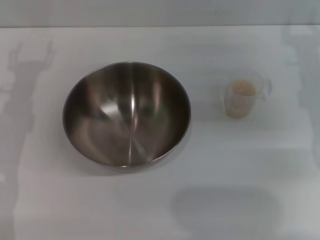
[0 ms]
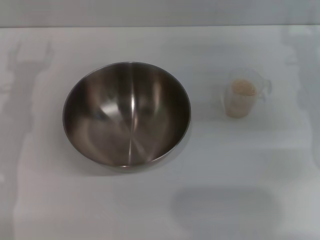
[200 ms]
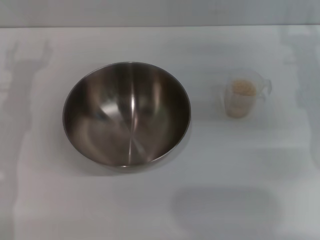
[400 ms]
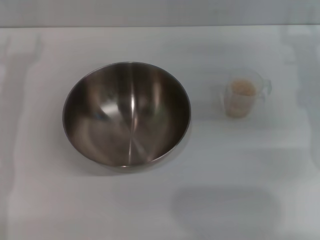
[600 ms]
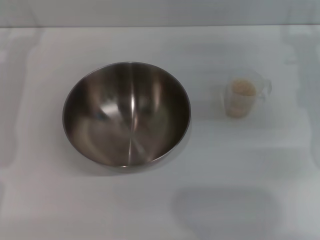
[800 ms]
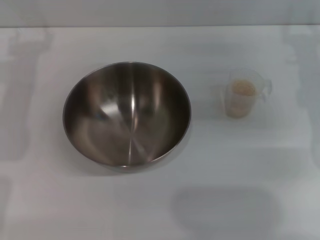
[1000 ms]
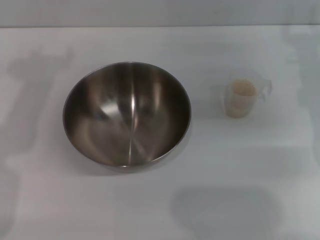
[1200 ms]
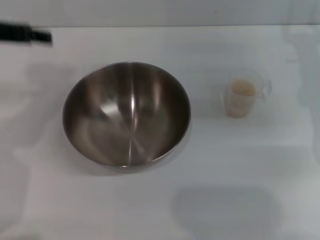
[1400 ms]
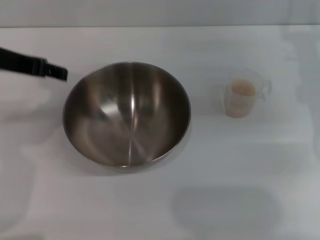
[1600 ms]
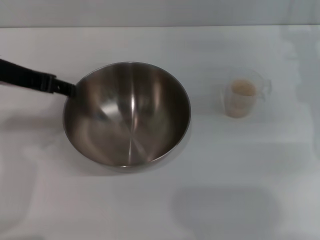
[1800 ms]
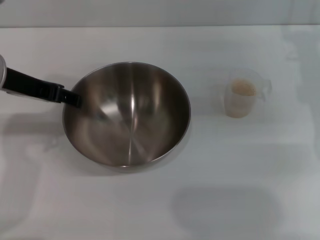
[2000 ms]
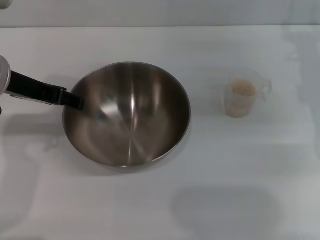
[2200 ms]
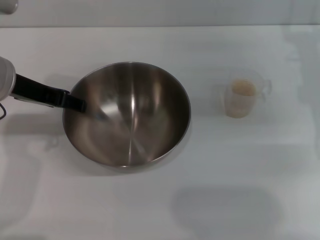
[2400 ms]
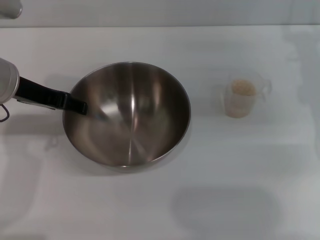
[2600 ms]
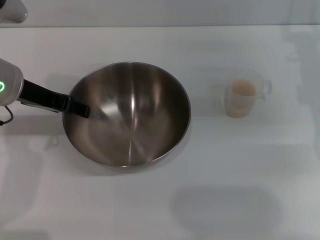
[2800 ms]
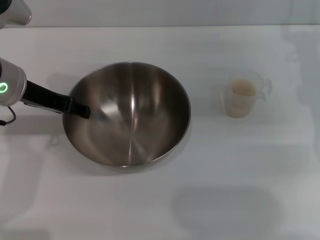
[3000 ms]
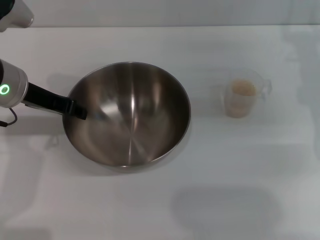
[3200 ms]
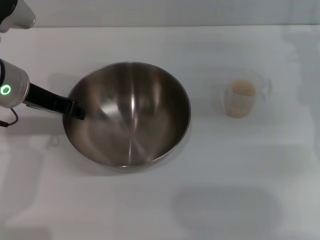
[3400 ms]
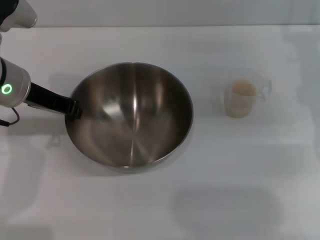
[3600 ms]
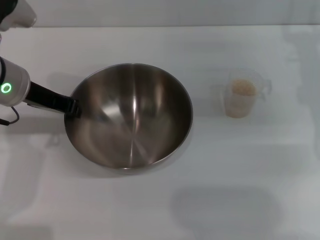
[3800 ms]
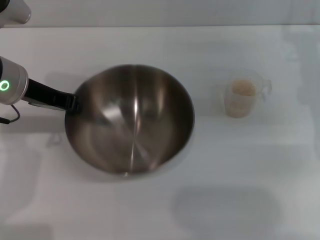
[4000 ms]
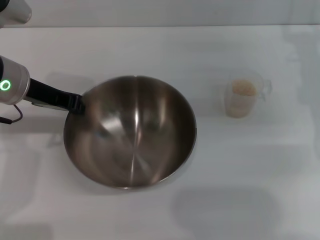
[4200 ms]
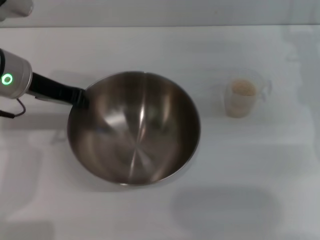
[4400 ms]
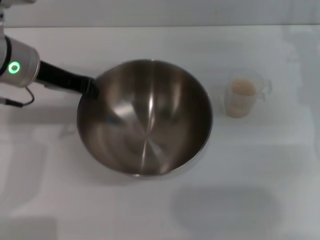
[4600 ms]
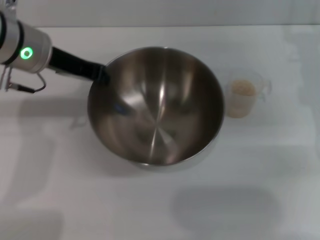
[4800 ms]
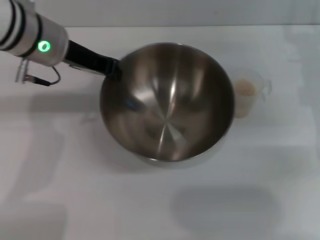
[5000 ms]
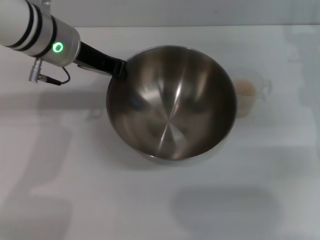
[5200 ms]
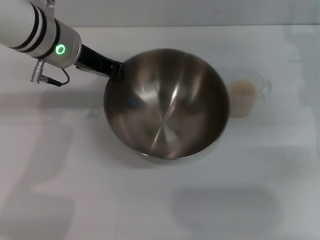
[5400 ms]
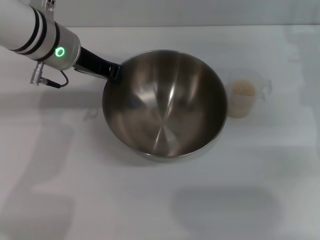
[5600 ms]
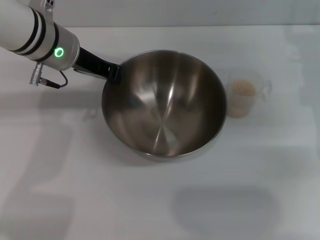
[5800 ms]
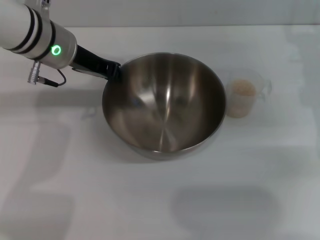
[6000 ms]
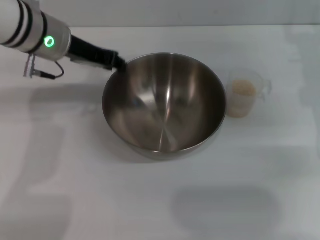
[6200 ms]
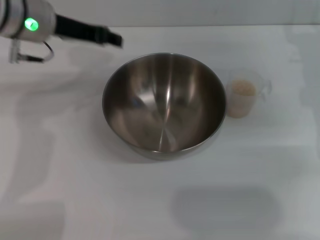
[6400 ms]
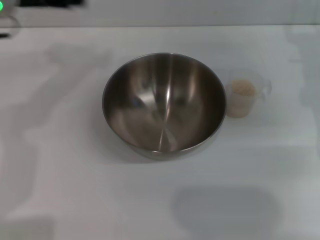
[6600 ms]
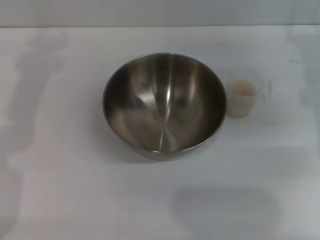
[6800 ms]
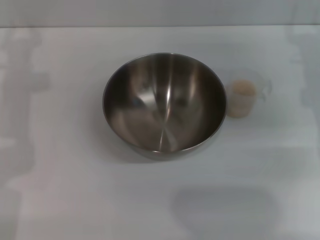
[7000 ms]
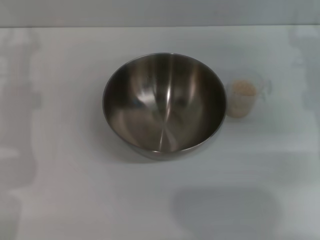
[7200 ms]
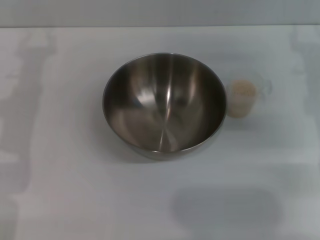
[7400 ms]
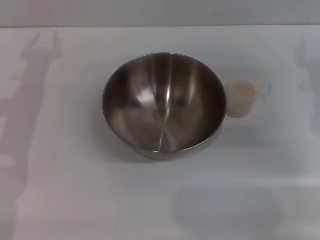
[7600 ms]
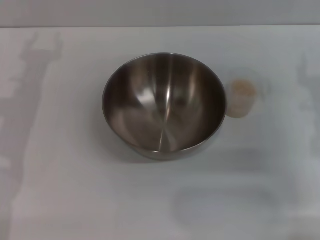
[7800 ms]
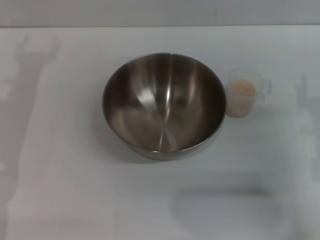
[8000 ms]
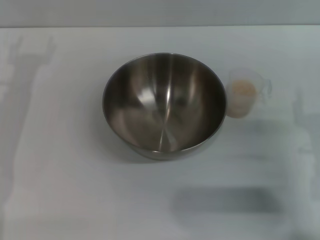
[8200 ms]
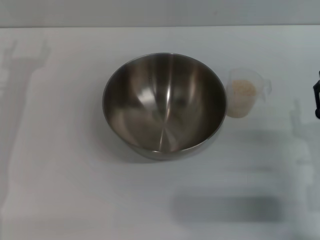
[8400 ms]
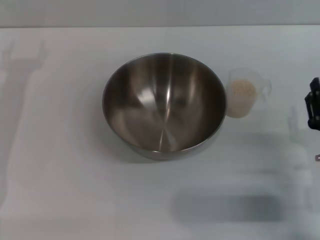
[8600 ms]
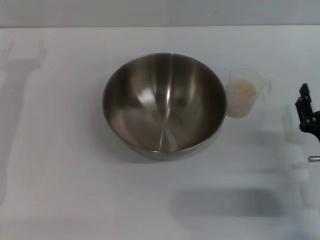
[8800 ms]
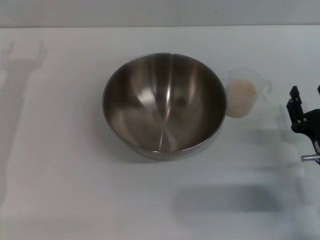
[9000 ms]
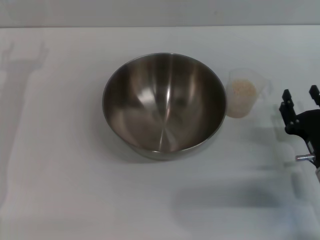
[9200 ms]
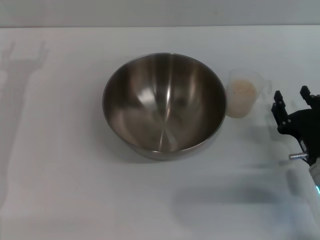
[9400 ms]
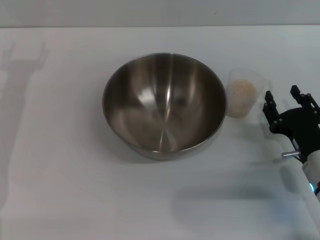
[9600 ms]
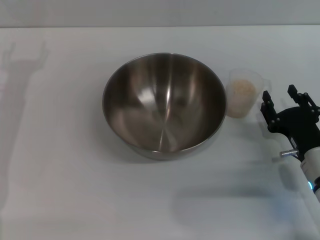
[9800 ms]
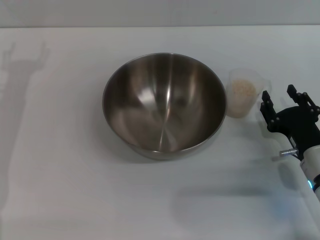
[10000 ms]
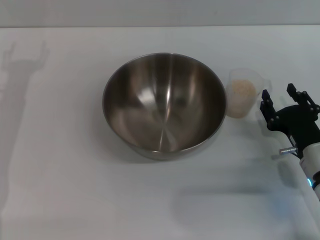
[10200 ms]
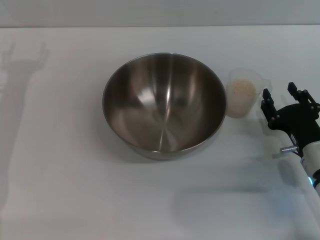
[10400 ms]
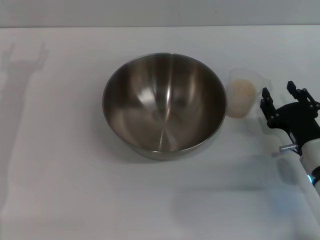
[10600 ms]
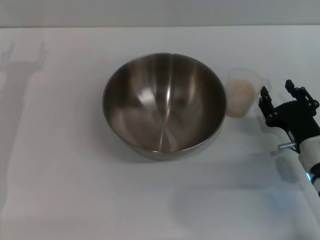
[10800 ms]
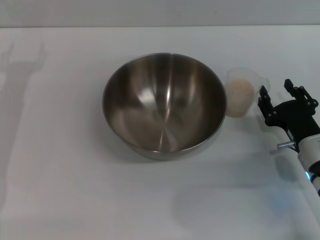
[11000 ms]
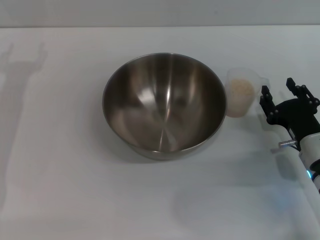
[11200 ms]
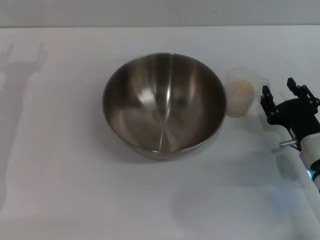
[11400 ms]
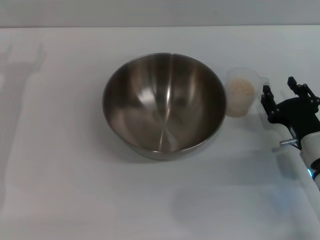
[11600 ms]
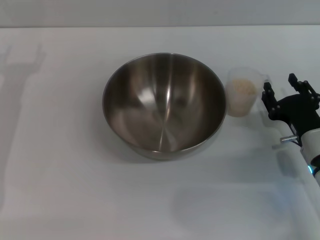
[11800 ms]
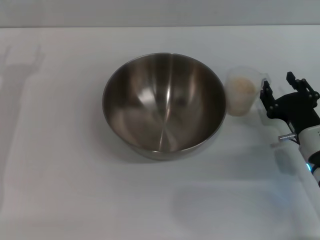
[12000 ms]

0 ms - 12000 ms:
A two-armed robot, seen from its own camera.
Task of the whole recording: Place the bowl in the middle of the table with one hand and pour the rice from the grain cup into it with the other hand.
Step, 0 ms - 4200 ms: Pick up the bowl with the left gripper.
Step, 4400 ms - 6200 ms: Place the bowl in the center of view with the left gripper.
0 ms - 1600 ms: The left gripper moves upward and to the right, roughly 15 cm.
1600 ms - 3000 ms: The left gripper heads downward, covering some 5 cm.
3000 ms - 4400 ms: The left gripper closes.
4400 ms - 6000 ms: The left gripper shifts roughly 5 cm to the right.
6000 ms - 7600 ms: The right gripper travels backward by roughly 5 cm, while the left gripper is displaced to the left by some 10 cm, and opens its fingers.
7600 ms - 9000 ms: The right gripper heads backward and downward, covering roughly 15 cm.
9000 ms - 12000 ms: The grippers stay close to where they were, moving slightly.

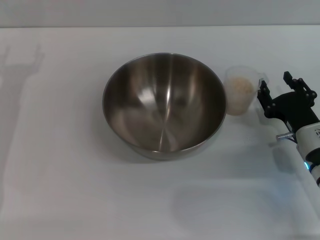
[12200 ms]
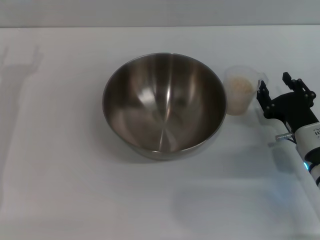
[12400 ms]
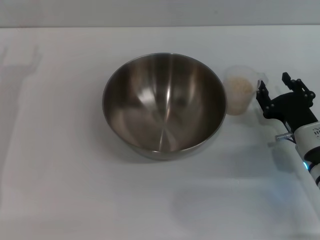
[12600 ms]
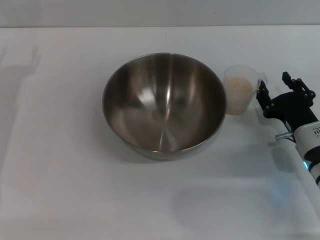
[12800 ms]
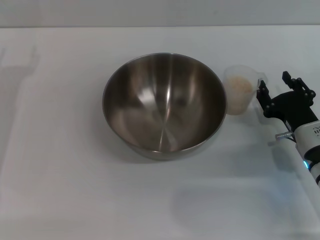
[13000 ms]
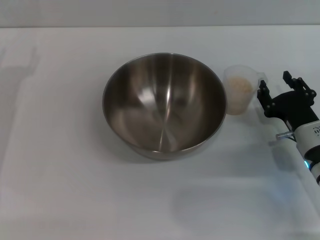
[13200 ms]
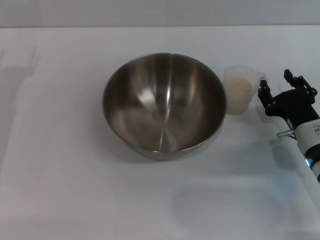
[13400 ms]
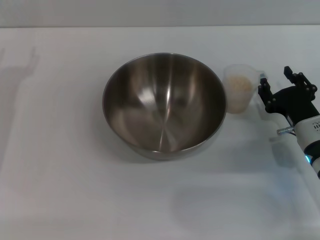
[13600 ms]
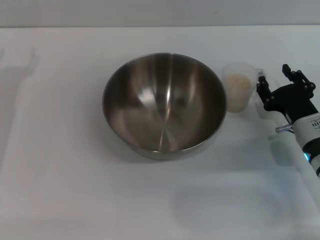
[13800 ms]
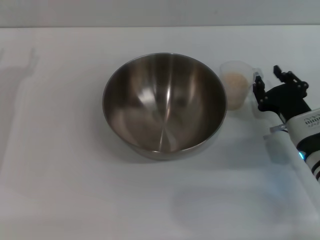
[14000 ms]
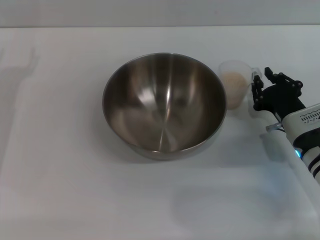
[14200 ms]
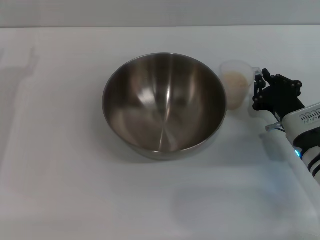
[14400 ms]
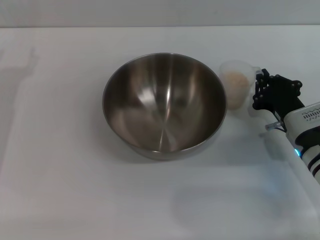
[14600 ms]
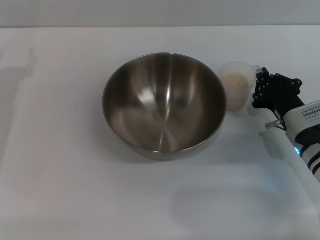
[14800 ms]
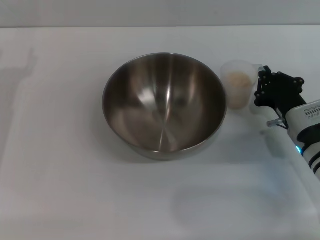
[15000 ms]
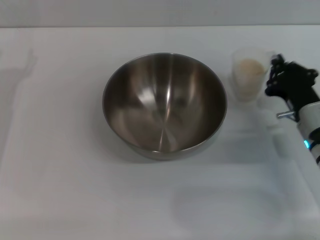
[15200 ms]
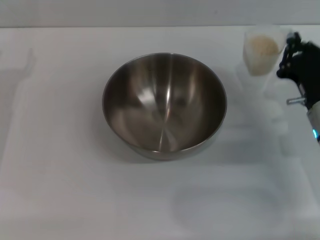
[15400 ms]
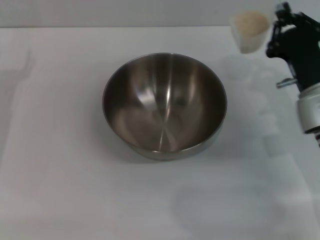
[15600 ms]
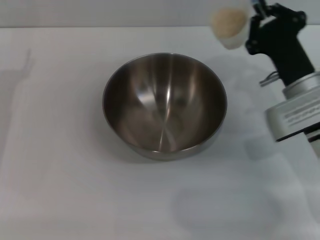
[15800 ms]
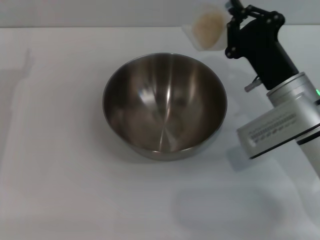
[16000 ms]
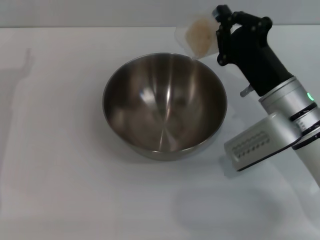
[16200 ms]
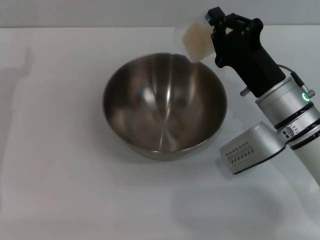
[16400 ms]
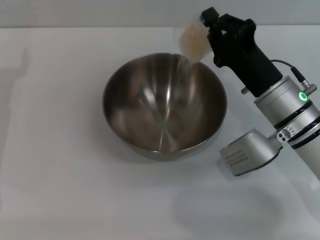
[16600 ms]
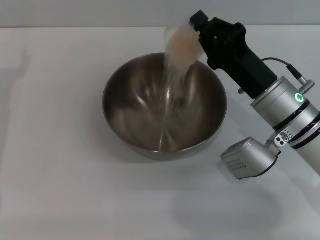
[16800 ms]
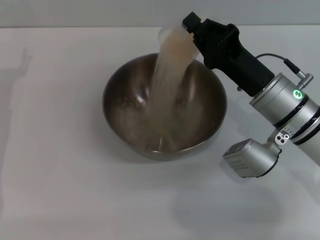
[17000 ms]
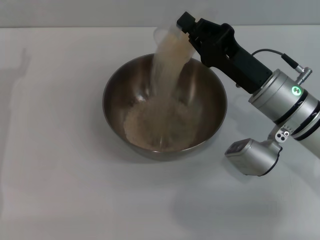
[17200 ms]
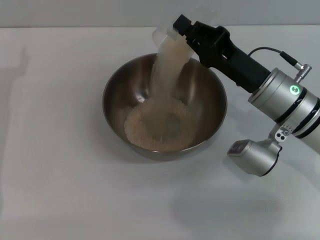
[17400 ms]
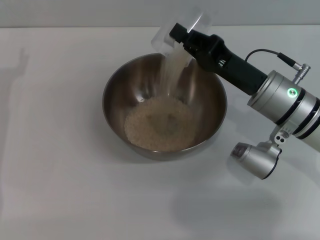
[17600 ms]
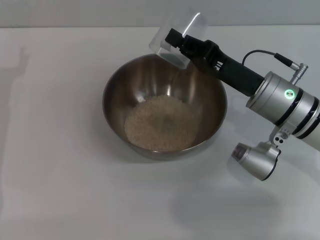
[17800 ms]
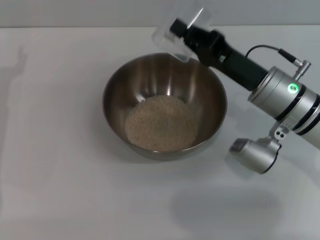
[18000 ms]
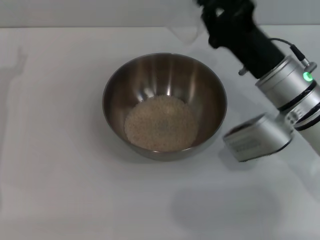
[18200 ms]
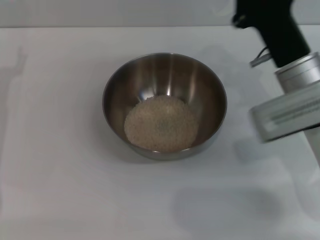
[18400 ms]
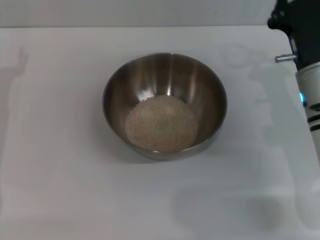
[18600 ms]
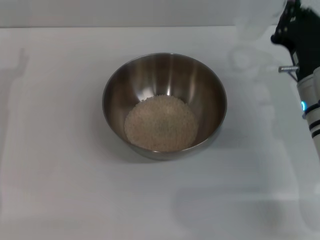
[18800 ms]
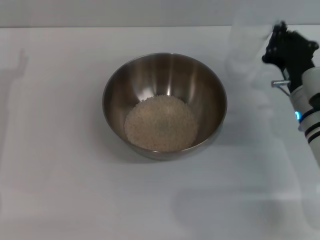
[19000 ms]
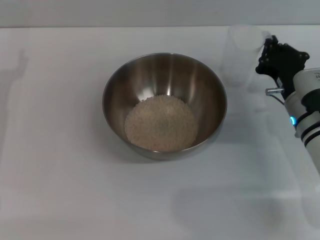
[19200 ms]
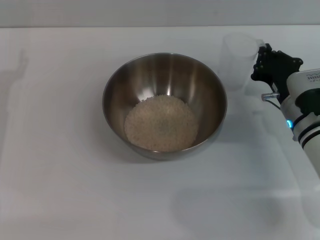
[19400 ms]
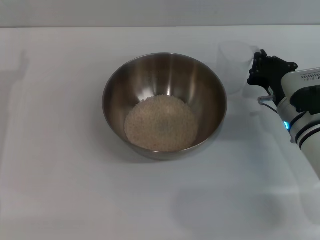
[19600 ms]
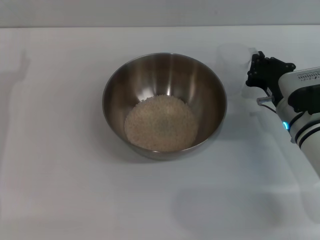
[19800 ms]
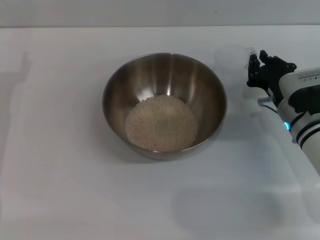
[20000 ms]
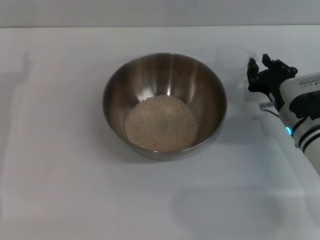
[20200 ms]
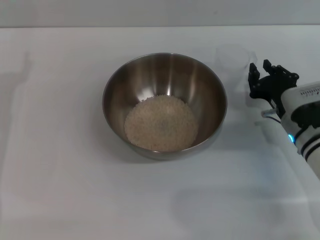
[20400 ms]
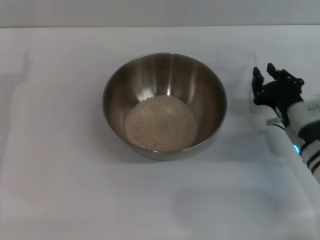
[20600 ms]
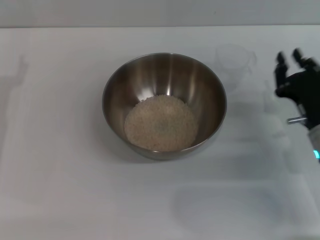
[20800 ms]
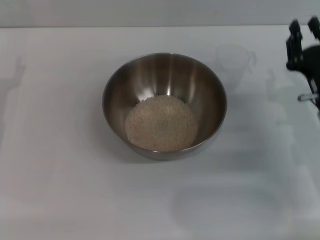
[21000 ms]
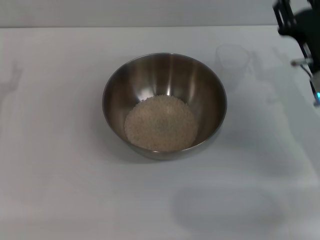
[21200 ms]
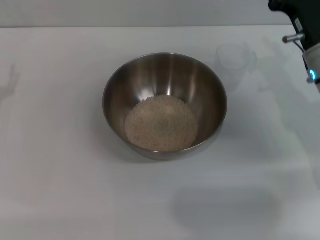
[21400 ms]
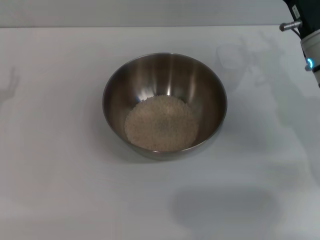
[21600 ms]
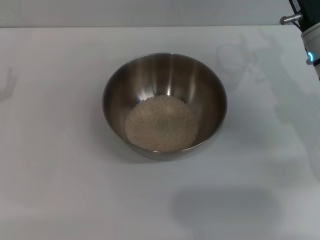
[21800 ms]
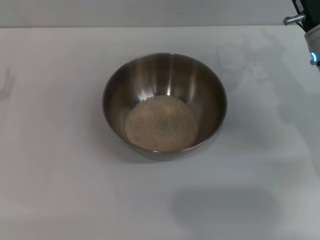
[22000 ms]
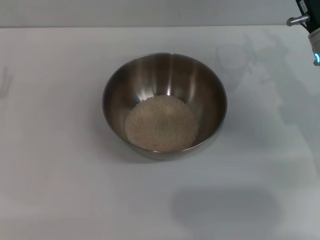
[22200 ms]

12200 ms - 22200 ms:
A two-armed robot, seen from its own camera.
Task of the whole recording: Place the bowl in the middle of the table with one hand and pour the rice from the grain cup into it with the other hand.
Step, 12200 ms - 15400 ms: Pick up the cup with rice in it with the right gripper.
Step, 15600 ms - 18000 ms: Pour the rice from the cup into the bowl with the right gripper.
Step, 18200 ms - 20400 ms: Place the cup on the table with the right gripper.
12200 ms - 13600 ms: The two grippers keep their place.
13600 ms - 15000 ms: The right gripper closes.
15000 ms - 16400 ms: The right gripper travels upward and to the left by about 10 cm.
18000 ms - 19400 ms: The right gripper goes approximately 5 cm downward.
19400 ms - 20800 ms: The right gripper heads backward, covering some 5 cm, and opens.
20800 ms - 22200 ms: The right gripper shifts approximately 15 cm forward and upward, and opens up.
